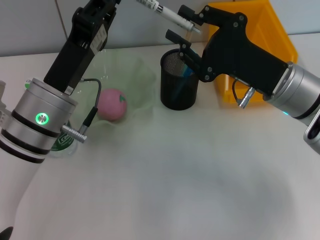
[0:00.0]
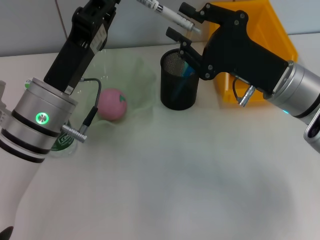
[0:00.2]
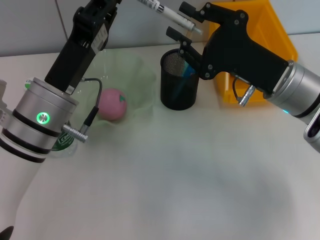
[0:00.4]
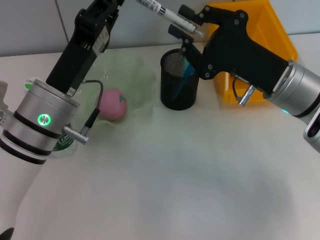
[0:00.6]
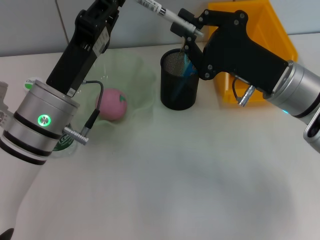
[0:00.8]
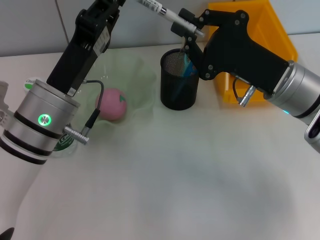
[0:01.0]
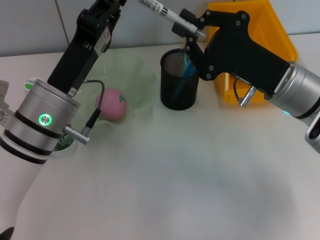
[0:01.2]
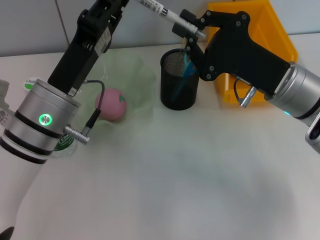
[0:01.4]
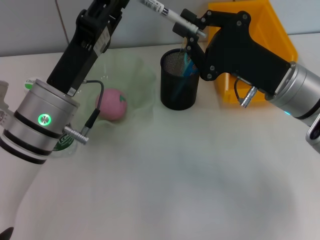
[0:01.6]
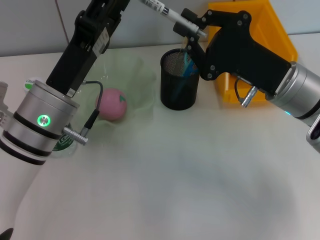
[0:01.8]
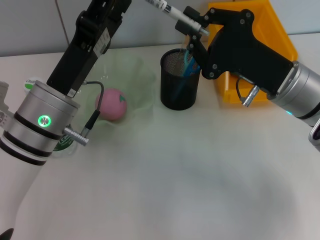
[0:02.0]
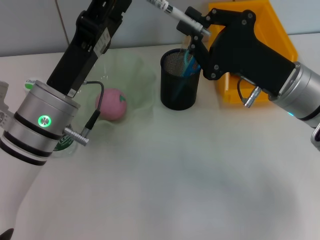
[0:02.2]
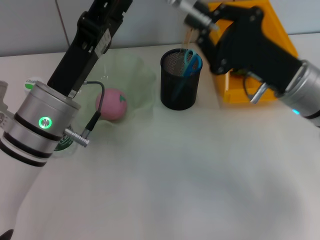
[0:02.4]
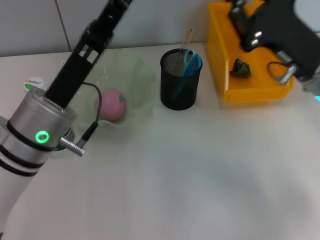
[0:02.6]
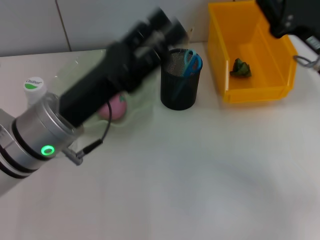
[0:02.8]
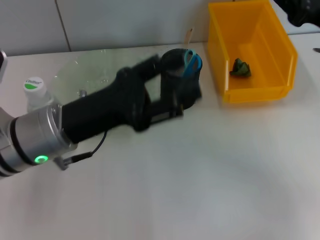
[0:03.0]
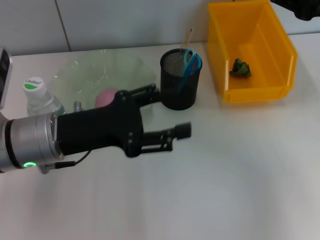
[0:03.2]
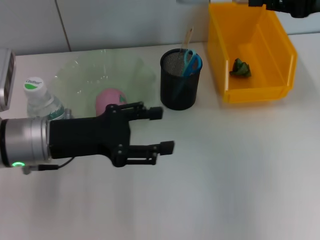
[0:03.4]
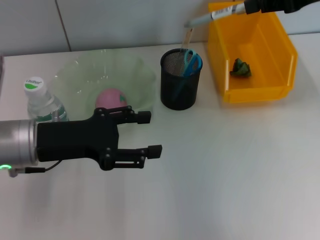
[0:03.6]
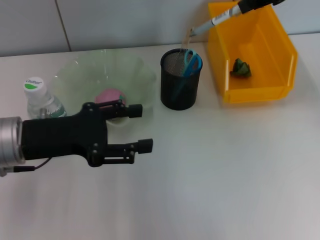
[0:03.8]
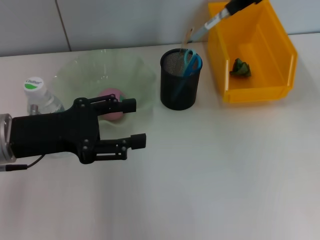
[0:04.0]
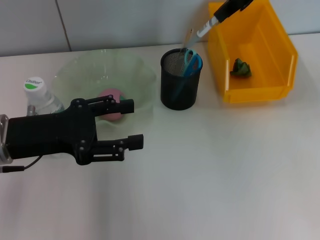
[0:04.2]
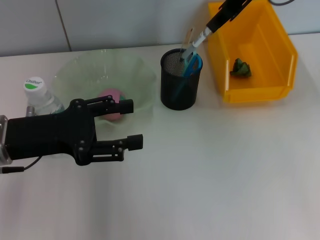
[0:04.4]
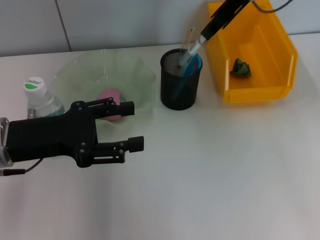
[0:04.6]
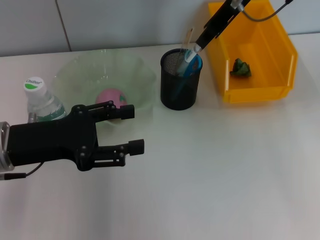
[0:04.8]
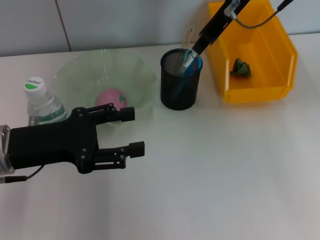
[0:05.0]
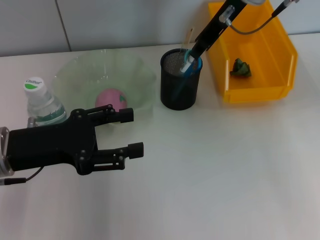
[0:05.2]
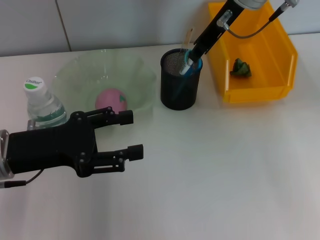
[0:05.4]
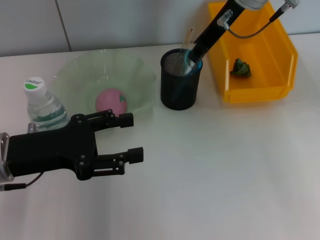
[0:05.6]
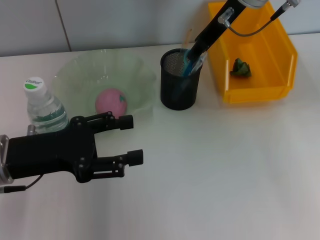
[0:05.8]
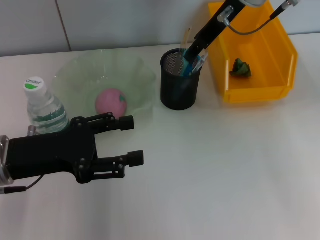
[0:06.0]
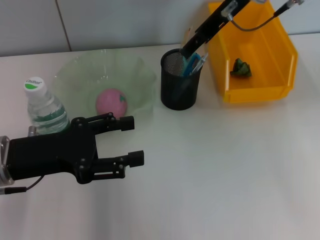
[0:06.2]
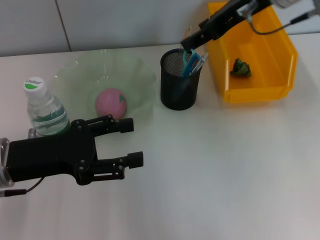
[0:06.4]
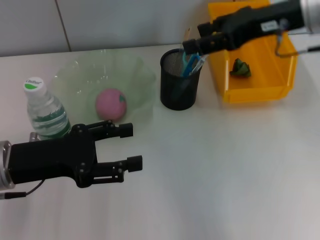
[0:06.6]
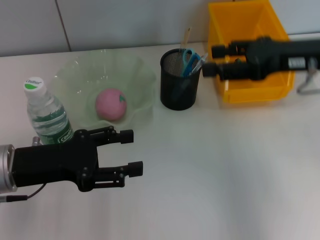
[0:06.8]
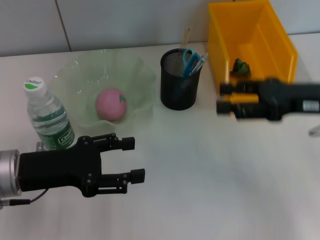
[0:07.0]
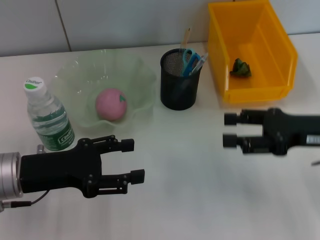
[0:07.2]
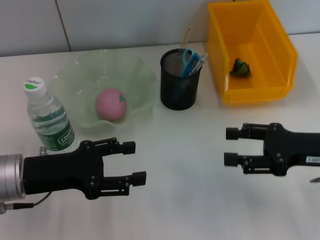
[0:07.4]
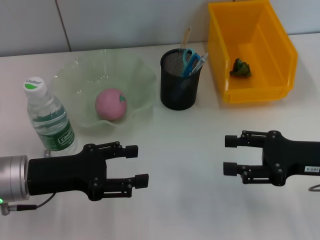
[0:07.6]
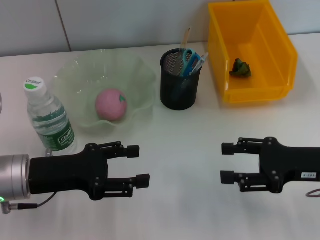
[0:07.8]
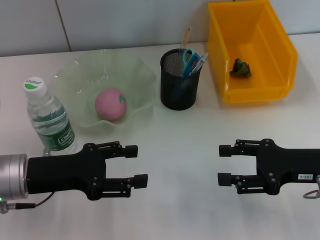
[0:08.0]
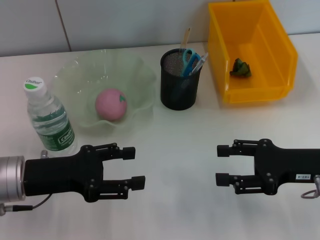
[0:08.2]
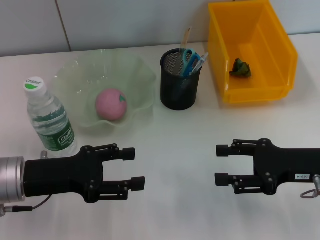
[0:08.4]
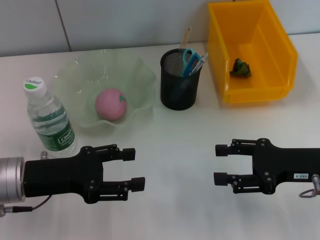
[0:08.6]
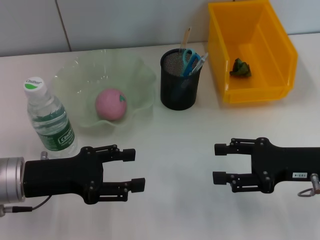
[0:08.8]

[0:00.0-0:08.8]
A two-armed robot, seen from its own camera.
Step, 2.0 to 6.0 s: Place the gray spring-action pen into the pen holder with the right hand.
0.0 to 1.4 s: The right gripper closes its fingers.
1.4 to 3.0 s: The right gripper shifts roughly 10 cm to the right and upward; the left gripper opens its fingers.
3.0 to 4.4 s: The left gripper moves to the left, some 5 cm. Meanwhile the right gripper is displaced upward, to the left and forward by roughly 20 cm.
4.4 to 5.8 s: The right gripper goes about 5 cm downward.
5.8 to 7.4 s: The right gripper travels backward, downward and to the right by roughly 30 cm, and opens up.
7.4 to 8.8 s: The grippers move only a little.

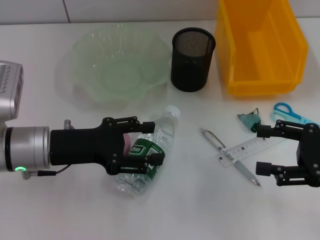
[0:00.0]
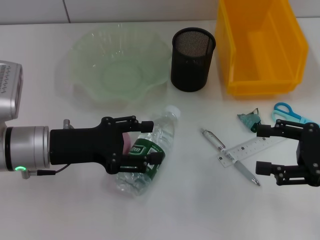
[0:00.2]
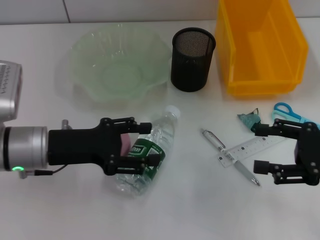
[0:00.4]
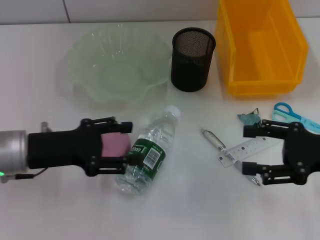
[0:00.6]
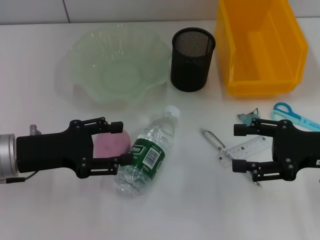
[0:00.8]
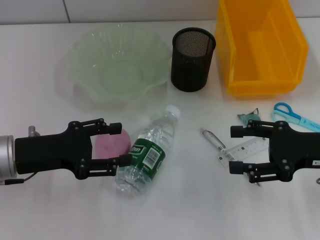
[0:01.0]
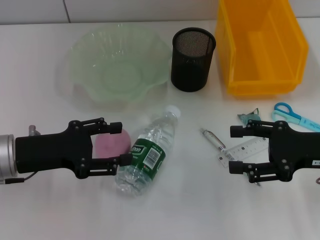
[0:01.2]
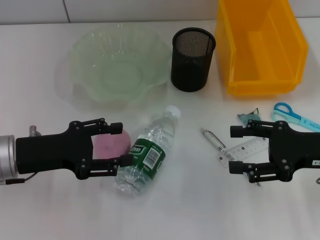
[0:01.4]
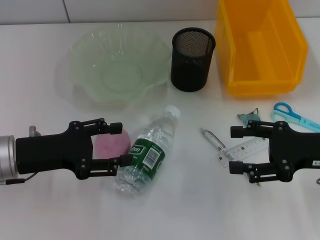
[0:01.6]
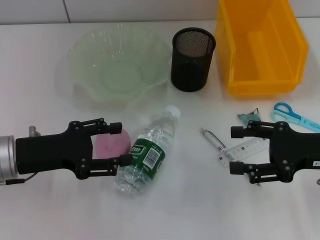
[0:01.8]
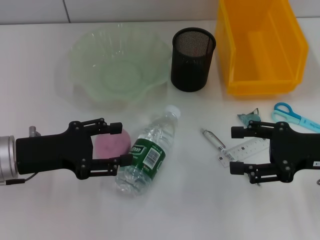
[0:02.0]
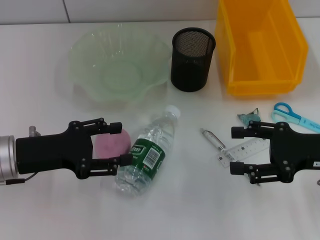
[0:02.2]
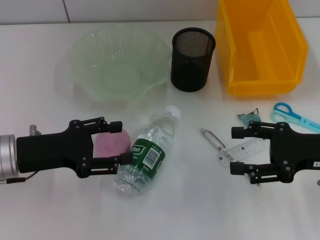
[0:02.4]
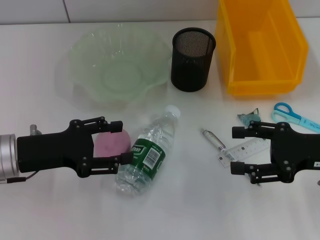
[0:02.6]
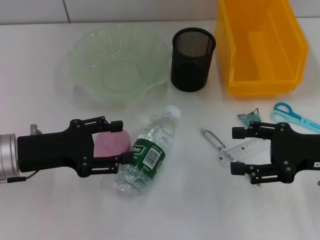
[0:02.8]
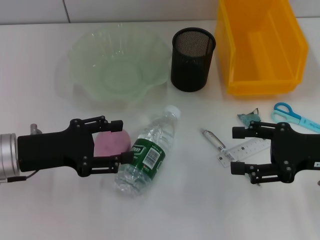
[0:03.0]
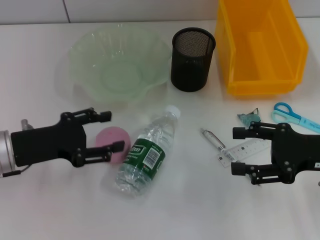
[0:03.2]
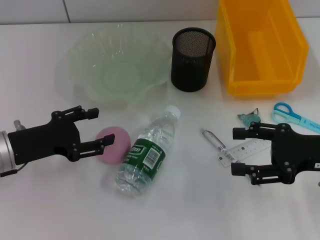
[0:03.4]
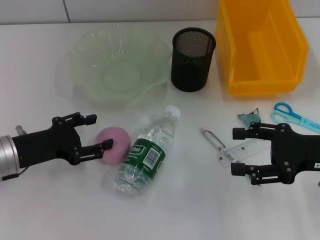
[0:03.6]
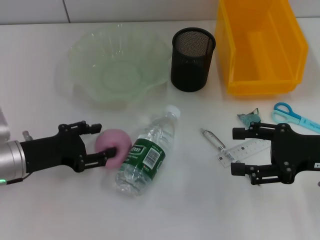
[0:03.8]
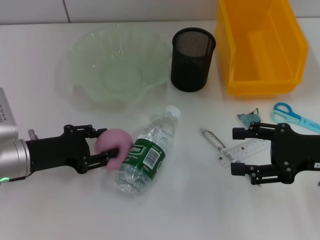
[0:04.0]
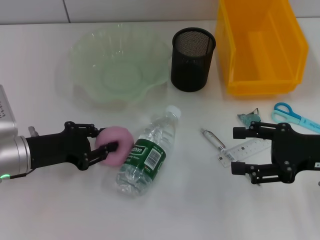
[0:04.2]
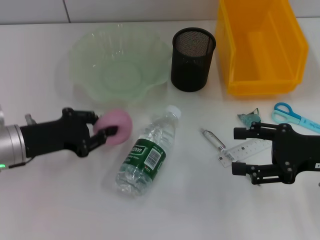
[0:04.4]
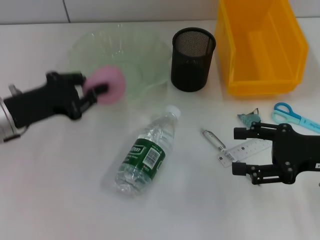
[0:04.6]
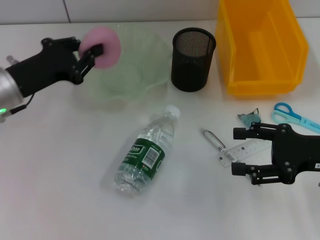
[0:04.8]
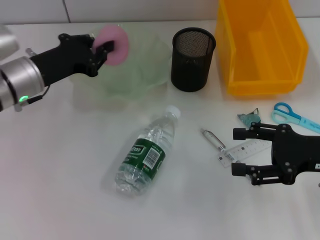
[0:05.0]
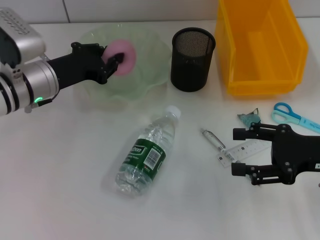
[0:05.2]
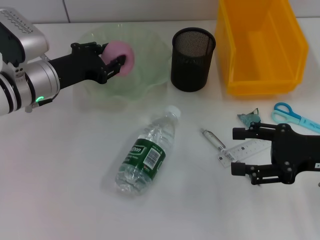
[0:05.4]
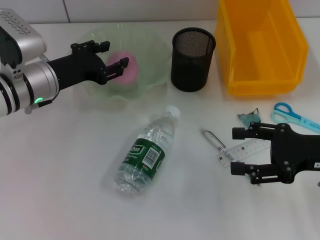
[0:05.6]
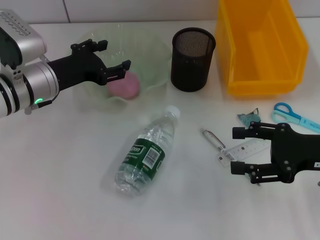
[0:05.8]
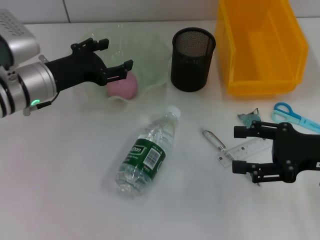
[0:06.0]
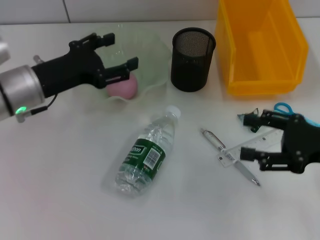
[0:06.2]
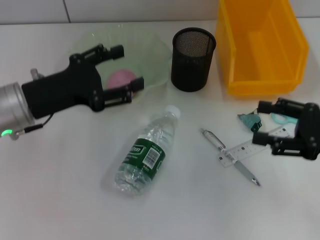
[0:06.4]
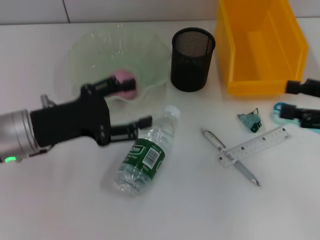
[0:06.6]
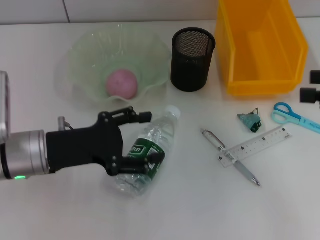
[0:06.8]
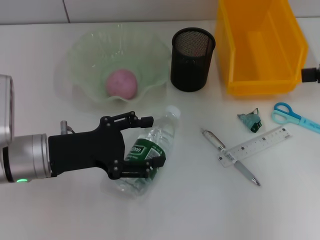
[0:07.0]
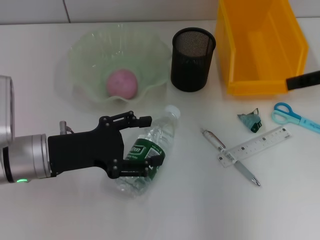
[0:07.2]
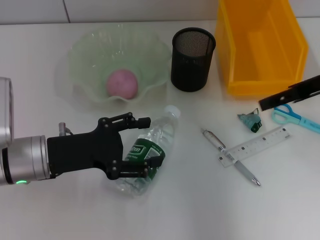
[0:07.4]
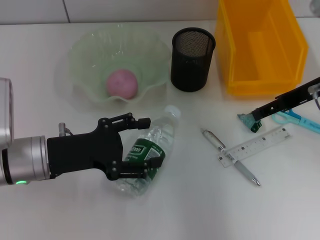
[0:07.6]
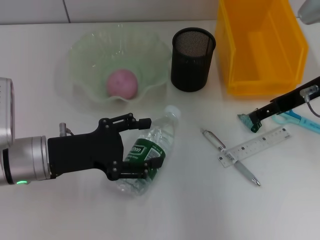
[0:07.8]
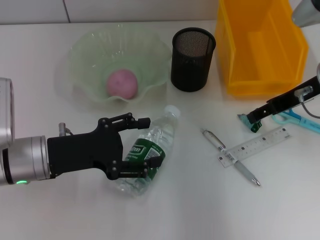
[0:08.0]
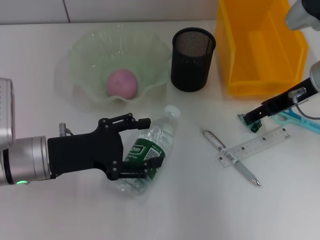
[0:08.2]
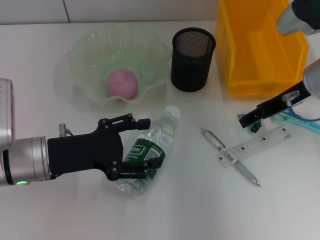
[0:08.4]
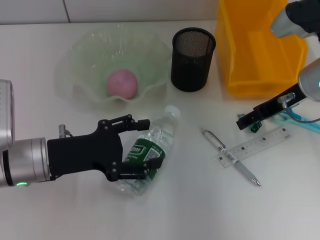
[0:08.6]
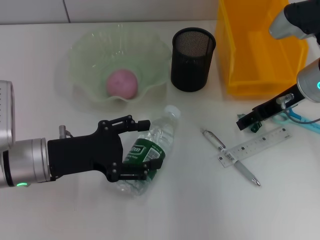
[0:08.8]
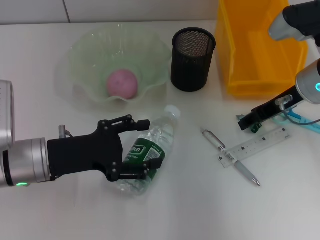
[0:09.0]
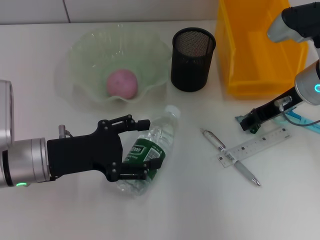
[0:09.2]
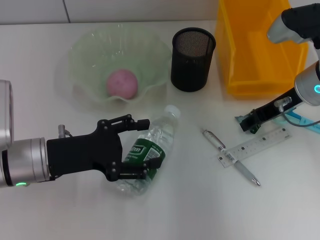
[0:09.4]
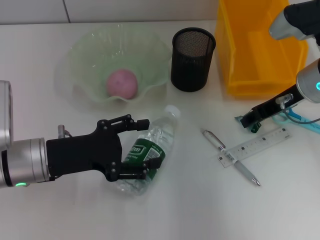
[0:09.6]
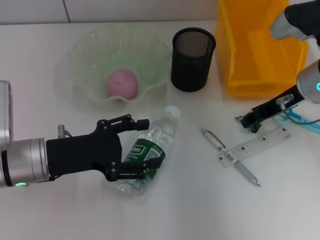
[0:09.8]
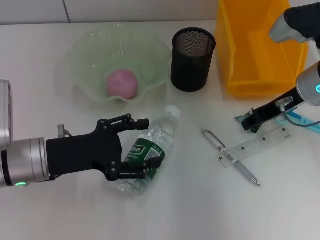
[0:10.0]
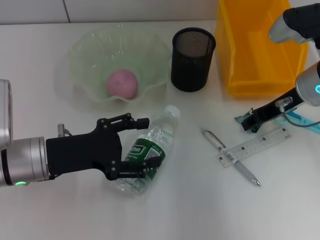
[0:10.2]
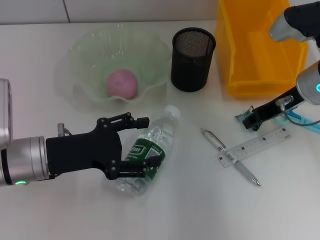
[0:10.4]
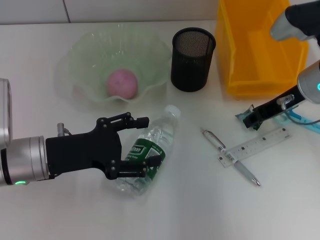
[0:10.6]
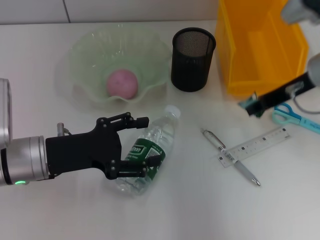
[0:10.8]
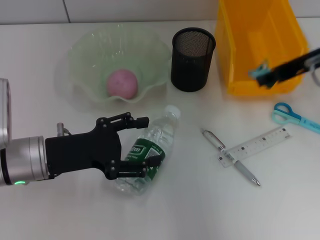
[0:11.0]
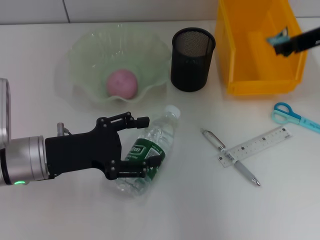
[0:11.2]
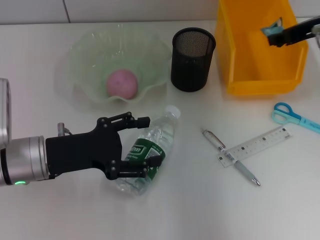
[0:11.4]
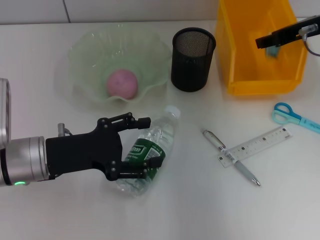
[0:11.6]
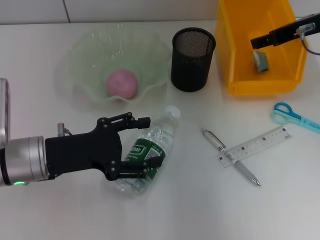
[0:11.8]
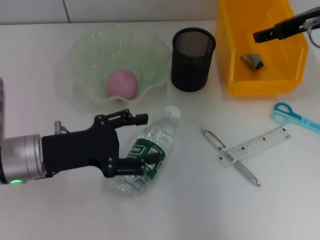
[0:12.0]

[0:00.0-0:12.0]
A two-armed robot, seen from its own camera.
Step, 0.0 to 4.0 s: Grab the peach with the left hand.
Step, 4.2 to 5.6 s: Place the peach into the fruit bowl with the left hand.
Step, 6.0 to 10.4 s: Grab the plastic with the right hand.
0.0 to 1.6 s: The grippers stay close to where they were, moving slightly.
1.6 to 3.0 s: Both grippers stay put.
3.0 to 4.4 s: The left gripper closes its fingers.
4.4 to 6.0 s: The left gripper is displaced forward by some 10 cm, and opens.
6.0 to 7.6 s: The right gripper heads upward and forward, covering approximately 15 cm. The left gripper goes approximately 10 cm backward.
7.6 to 9.0 s: The right gripper travels downward by roughly 5 cm.
9.0 to 10.4 s: The right gripper closes.
10.4 to 12.0 s: The right gripper is displaced upward by about 10 cm, and opens its fingers.

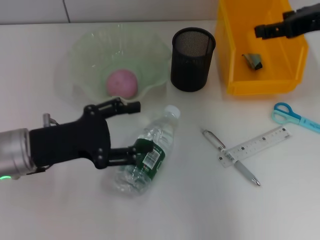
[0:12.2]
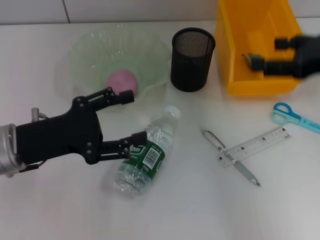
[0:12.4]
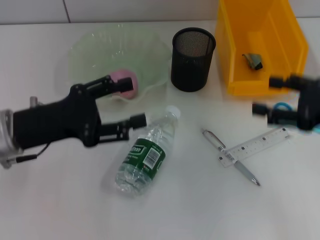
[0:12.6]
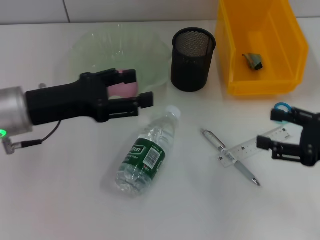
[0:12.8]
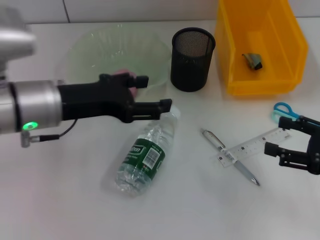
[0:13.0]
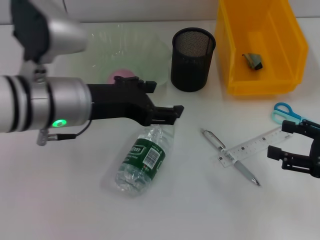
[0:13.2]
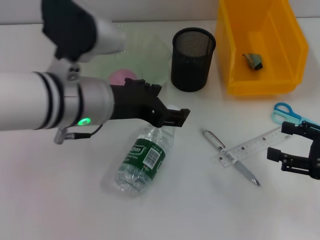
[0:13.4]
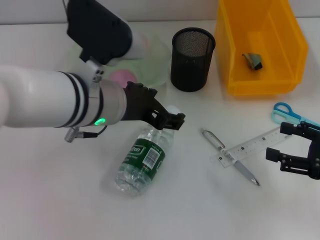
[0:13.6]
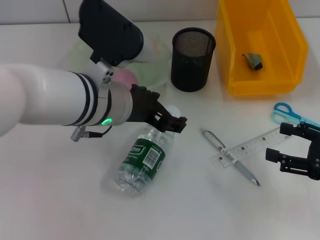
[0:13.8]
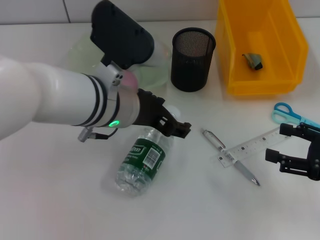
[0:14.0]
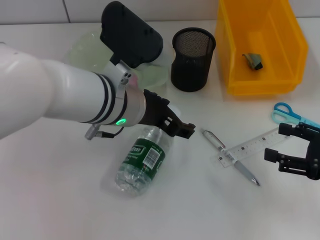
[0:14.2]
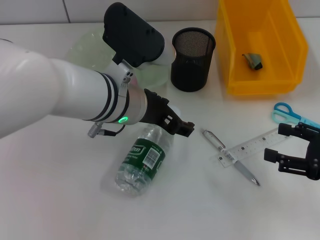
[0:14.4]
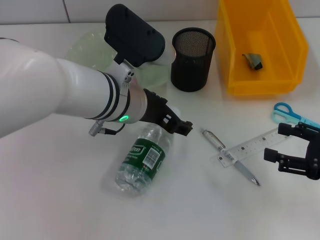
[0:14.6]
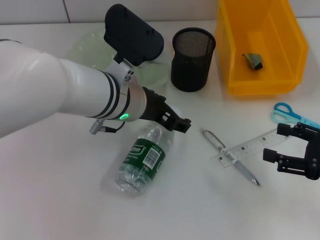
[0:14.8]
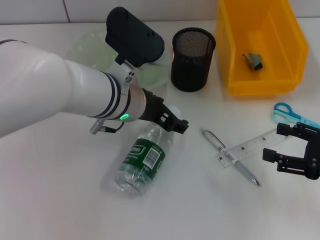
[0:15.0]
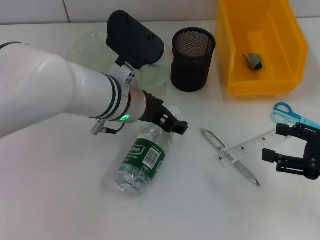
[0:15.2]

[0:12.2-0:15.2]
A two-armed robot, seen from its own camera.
12.2 to 13.8 s: The right gripper heads downward, backward and to the right, covering some 20 cm, while the left gripper goes some 15 cm to the right and upward.
13.8 to 15.2 s: The left gripper changes place by approximately 5 cm.
